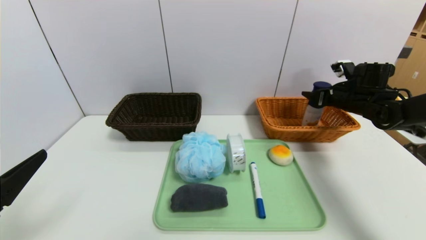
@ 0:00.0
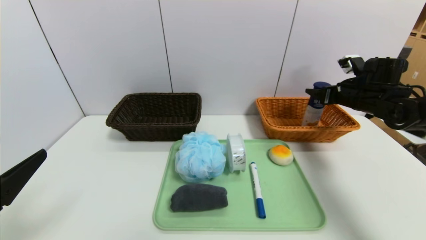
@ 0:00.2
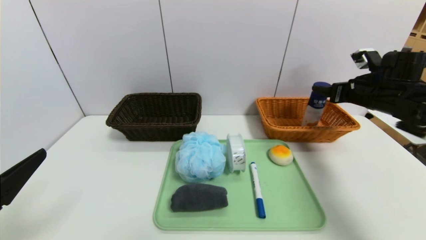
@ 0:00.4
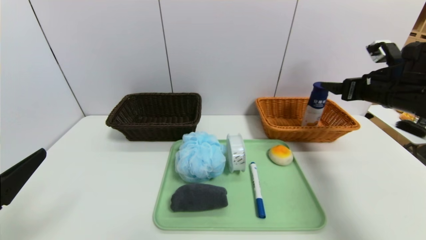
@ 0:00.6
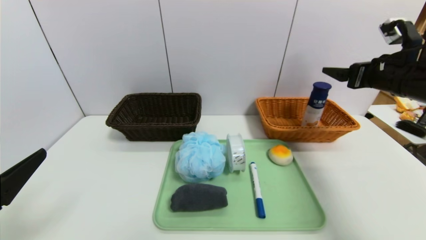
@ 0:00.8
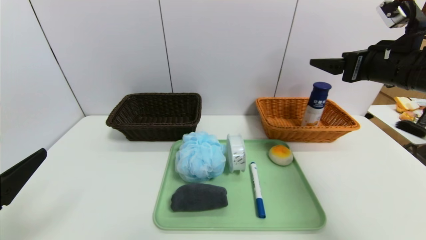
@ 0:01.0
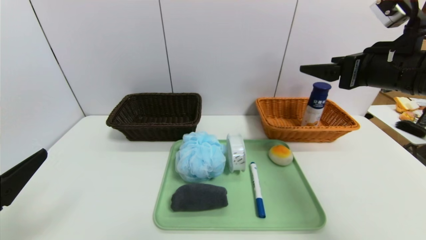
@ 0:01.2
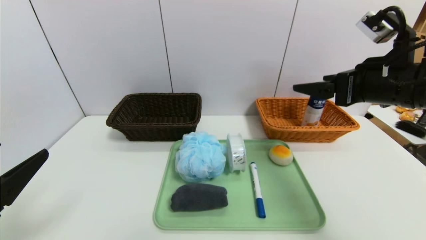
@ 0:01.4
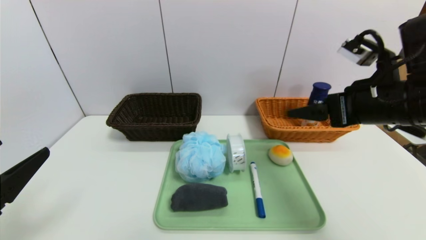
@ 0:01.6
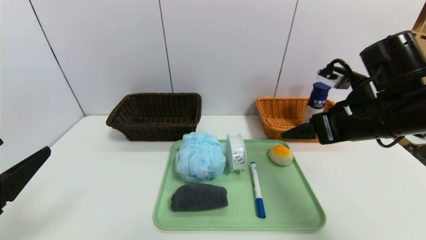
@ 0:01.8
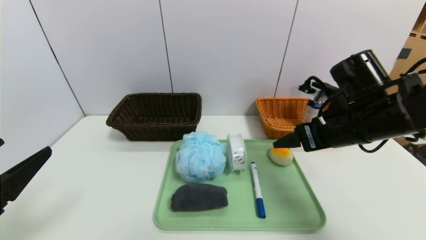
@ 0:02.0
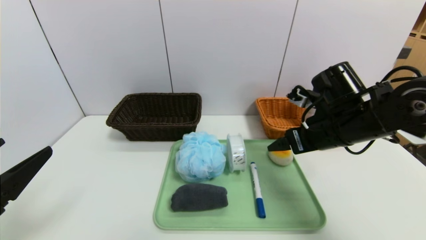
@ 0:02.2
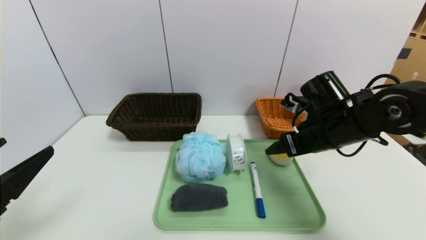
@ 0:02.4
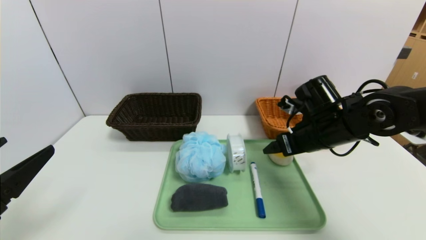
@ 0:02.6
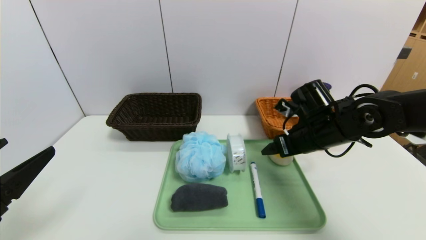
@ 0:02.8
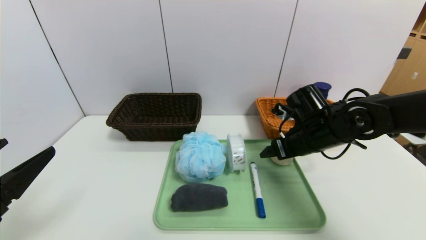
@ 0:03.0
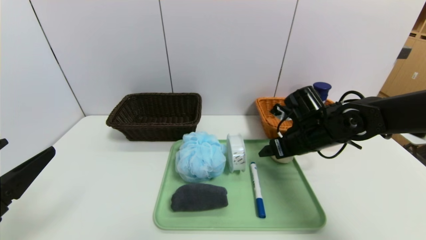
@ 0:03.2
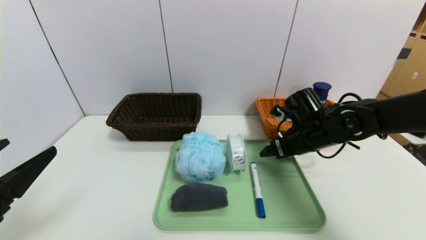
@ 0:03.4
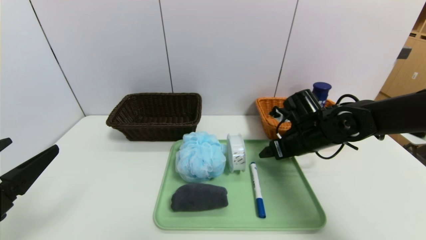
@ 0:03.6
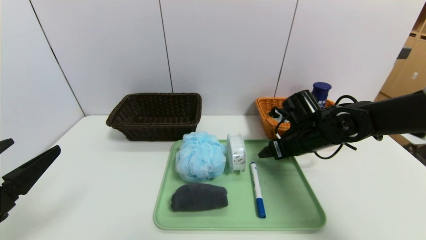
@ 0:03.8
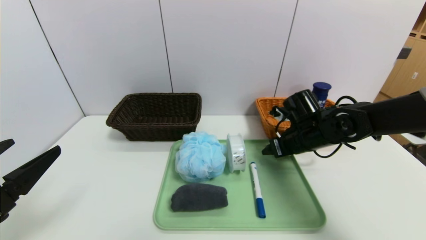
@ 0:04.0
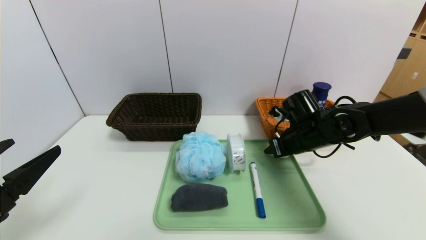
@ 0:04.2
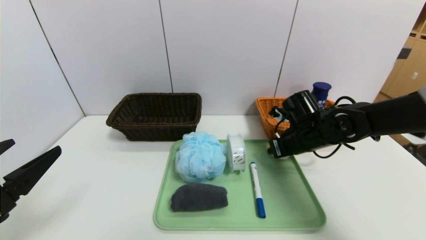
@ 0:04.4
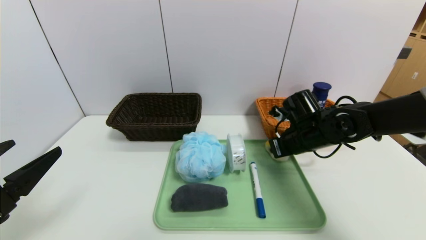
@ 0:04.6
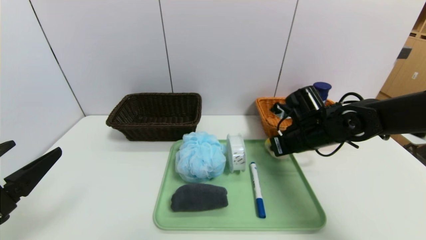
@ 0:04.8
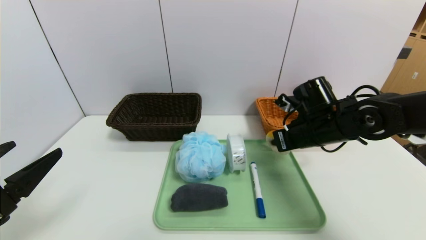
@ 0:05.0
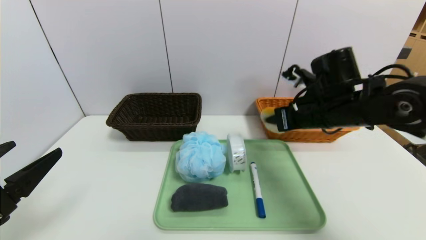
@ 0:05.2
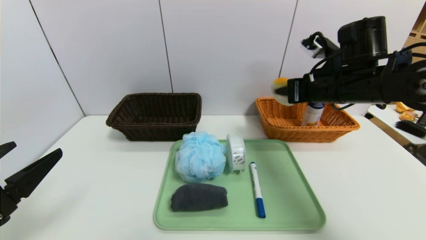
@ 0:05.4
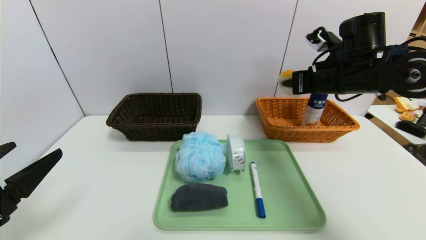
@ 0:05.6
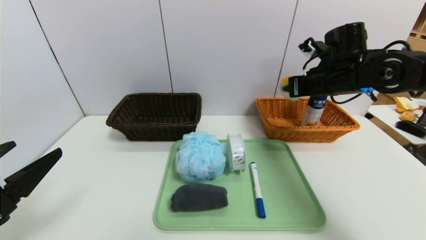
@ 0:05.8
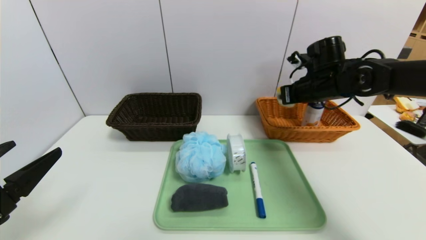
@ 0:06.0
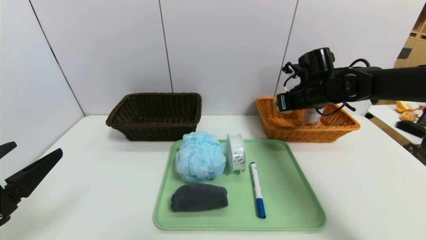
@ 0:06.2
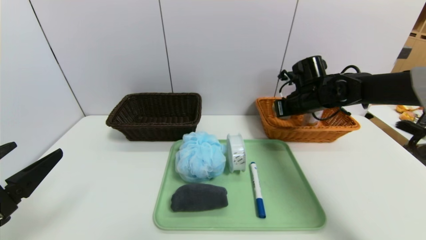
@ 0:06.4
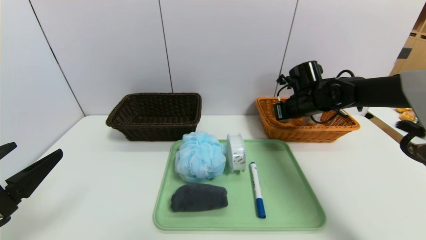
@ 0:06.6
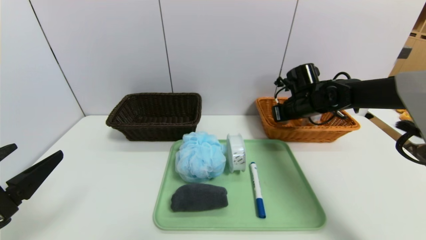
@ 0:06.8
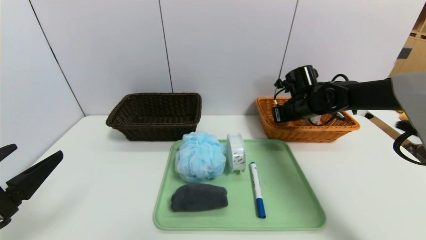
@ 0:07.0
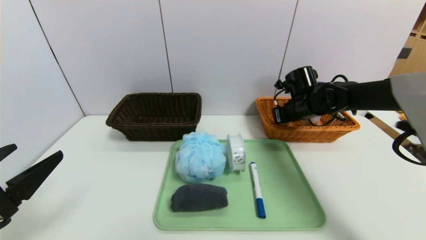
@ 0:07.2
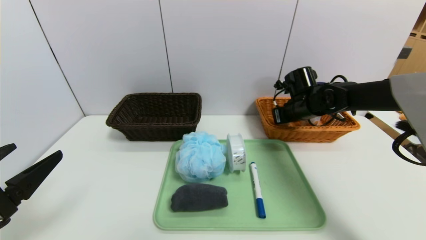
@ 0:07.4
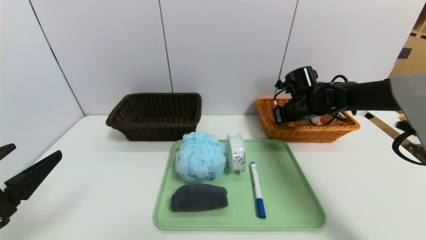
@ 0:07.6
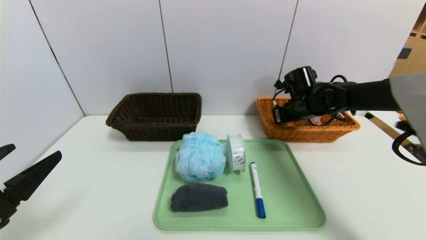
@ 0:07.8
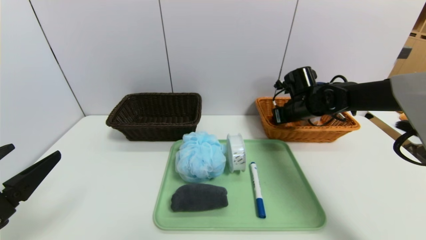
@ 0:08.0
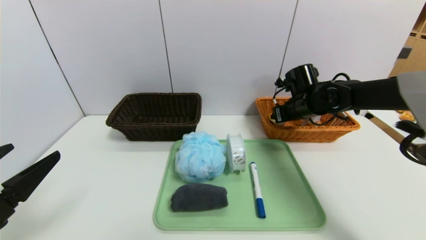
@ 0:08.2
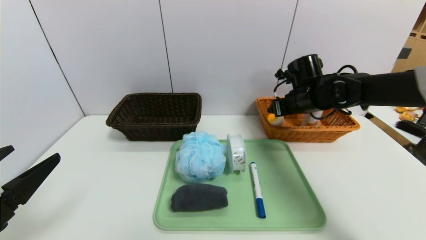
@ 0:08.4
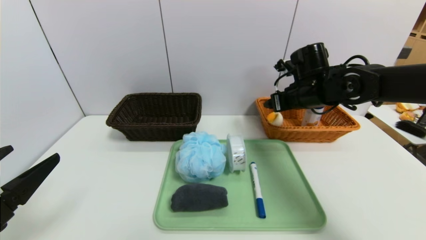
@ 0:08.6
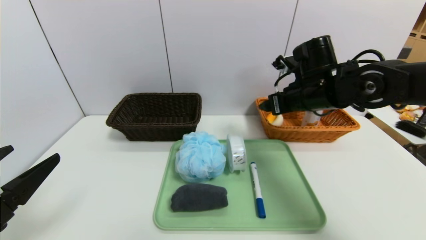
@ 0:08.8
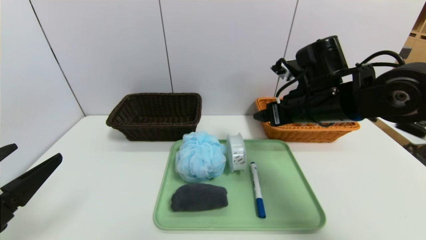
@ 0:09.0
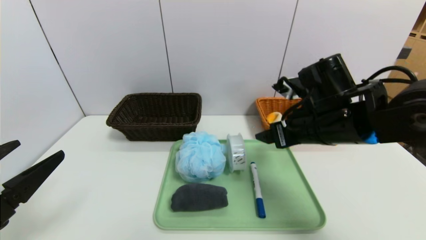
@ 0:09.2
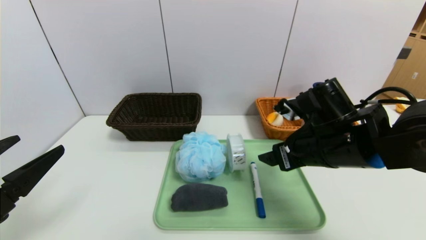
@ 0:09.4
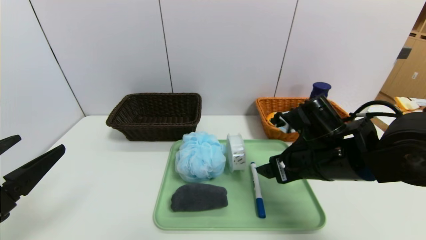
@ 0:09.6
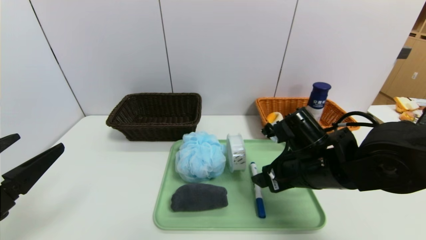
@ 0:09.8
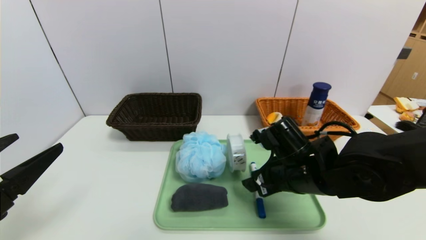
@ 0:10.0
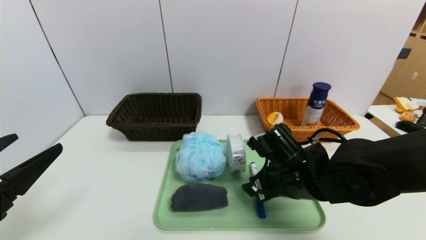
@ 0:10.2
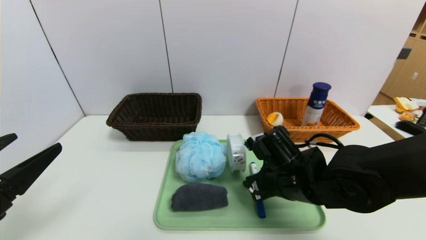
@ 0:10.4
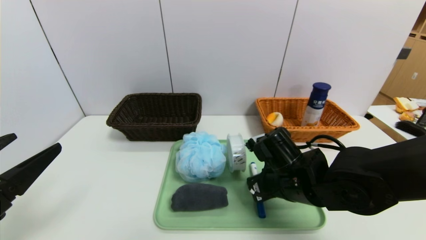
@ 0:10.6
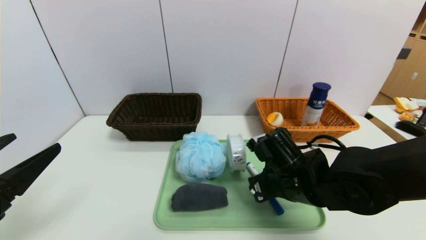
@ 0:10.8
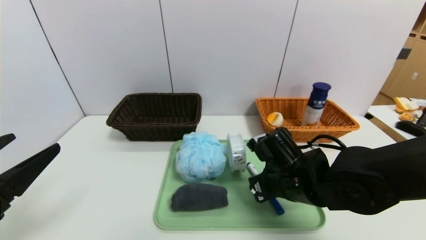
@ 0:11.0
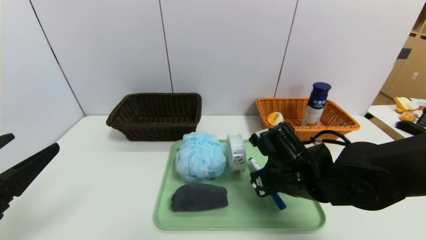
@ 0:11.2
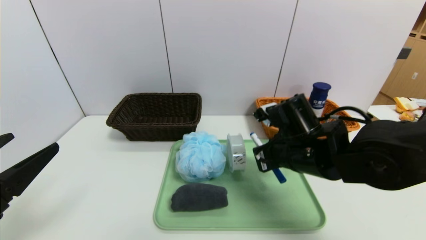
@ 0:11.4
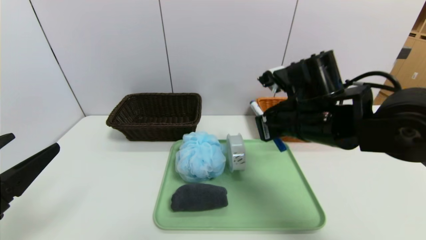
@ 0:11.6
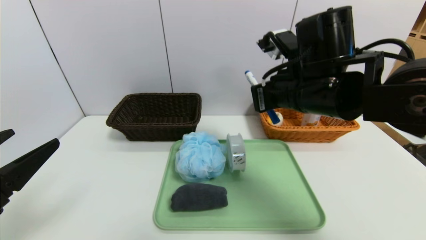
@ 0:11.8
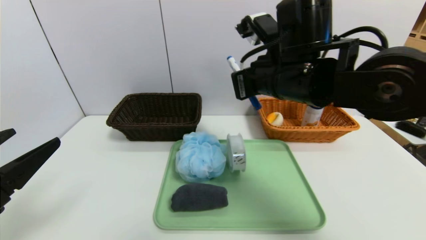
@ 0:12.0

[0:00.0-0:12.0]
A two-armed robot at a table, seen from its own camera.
Task of the whole recording: place the food in the right basket with the right gripper, and place the non food items in the left basket with the left gripper.
Step, 0:00.2 to 0:08.4: Grasp the round bread and put it in the right basket.
0:00.0 to 0:01.6: The right gripper heads backward, to the left and upward, covering about 25 cm.
0:01.6 to 0:03.0: The right gripper travels downward and forward by about 15 cm.
0:03.0 to 0:04.4: The right gripper closes up.
0:04.4 to 0:06.0: The right gripper travels upward and forward by approximately 10 cm.
0:06.0 to 0:07.6: The right gripper goes approximately 5 cm downward.
0:07.6 to 0:09.0: The right gripper travels backward, upward and to the left by approximately 15 cm, and opens.
0:09.0 to 0:10.4: The right gripper is displaced downward by approximately 10 cm.
0:10.4 to 0:12.0: The right gripper is displaced upward by approximately 20 cm, and closes up.

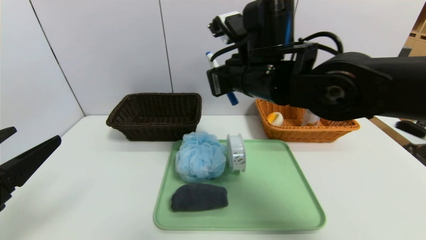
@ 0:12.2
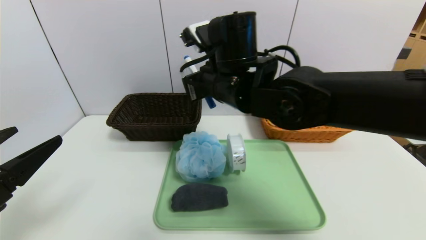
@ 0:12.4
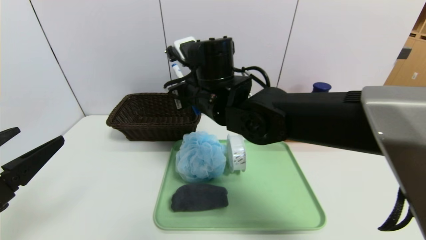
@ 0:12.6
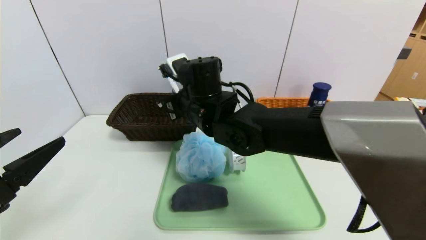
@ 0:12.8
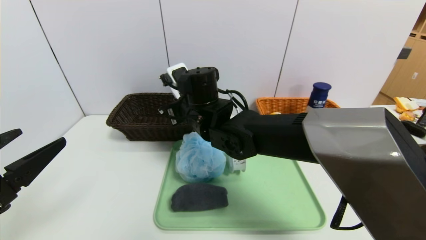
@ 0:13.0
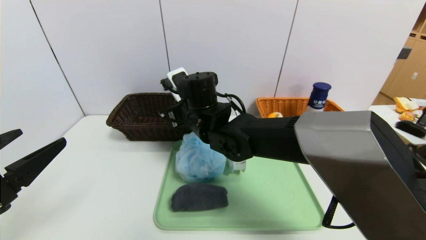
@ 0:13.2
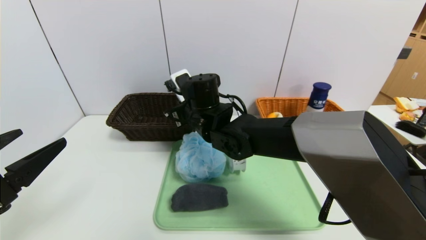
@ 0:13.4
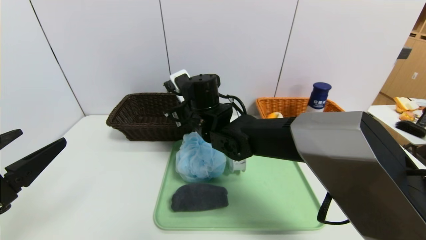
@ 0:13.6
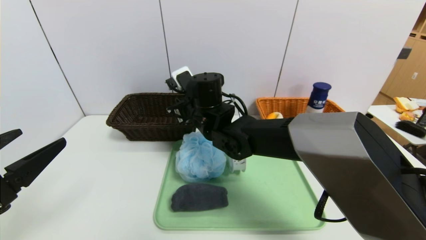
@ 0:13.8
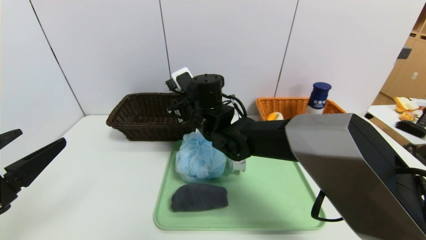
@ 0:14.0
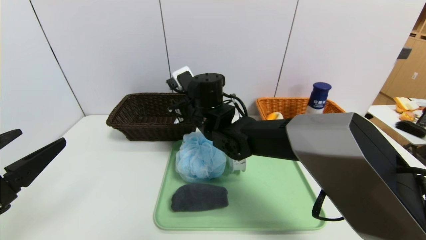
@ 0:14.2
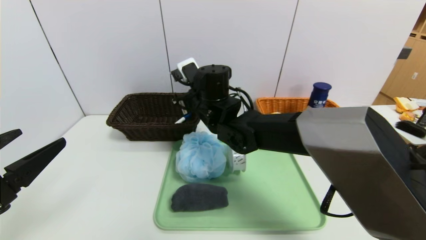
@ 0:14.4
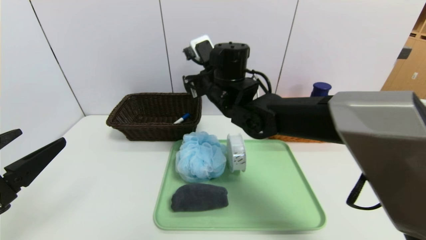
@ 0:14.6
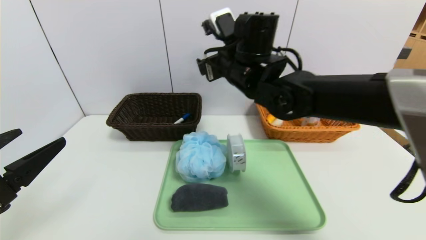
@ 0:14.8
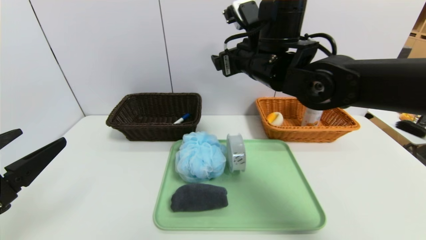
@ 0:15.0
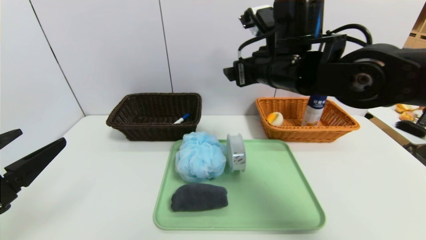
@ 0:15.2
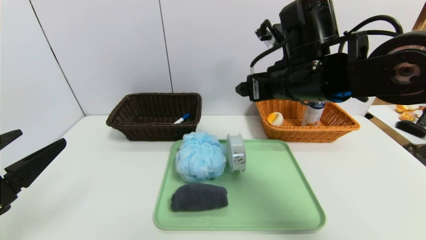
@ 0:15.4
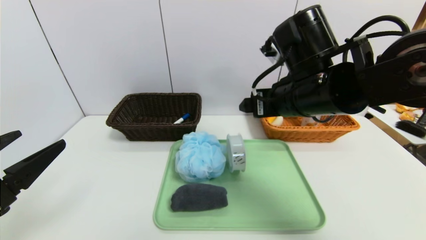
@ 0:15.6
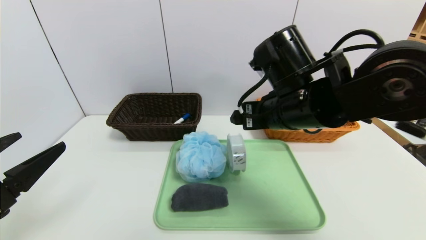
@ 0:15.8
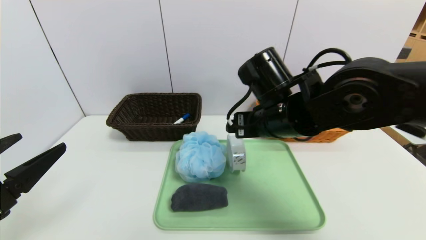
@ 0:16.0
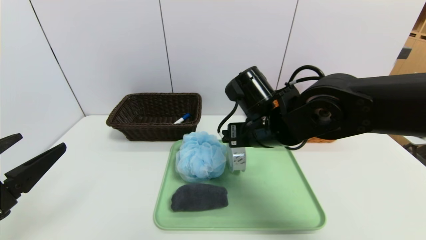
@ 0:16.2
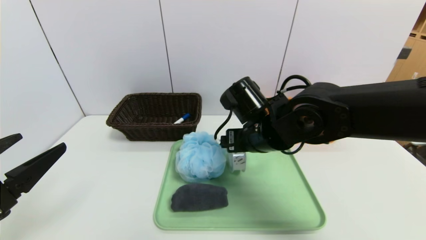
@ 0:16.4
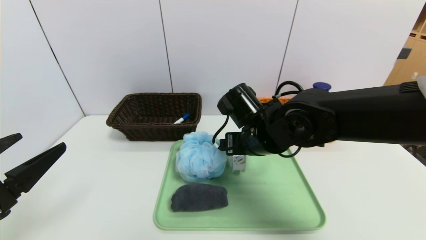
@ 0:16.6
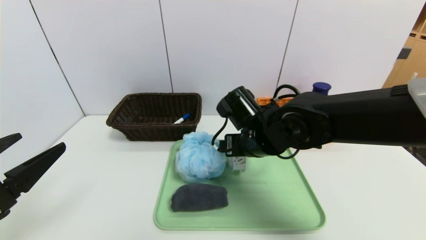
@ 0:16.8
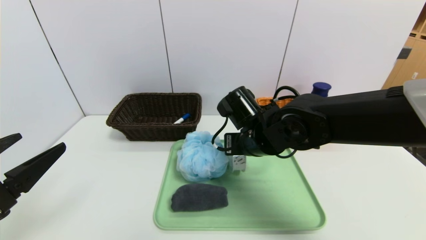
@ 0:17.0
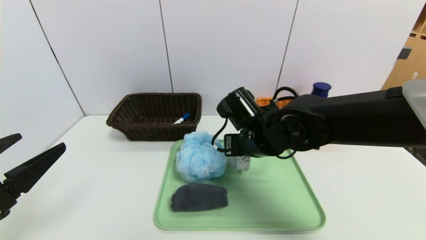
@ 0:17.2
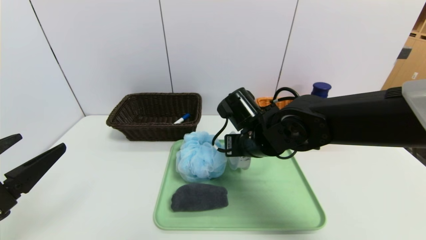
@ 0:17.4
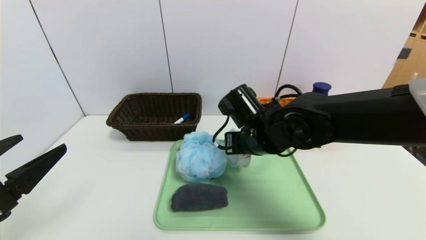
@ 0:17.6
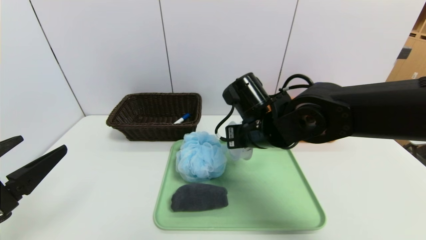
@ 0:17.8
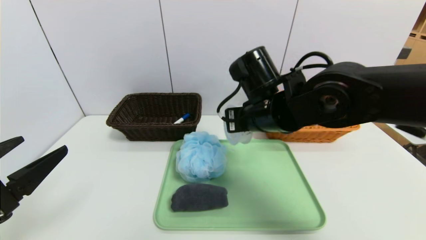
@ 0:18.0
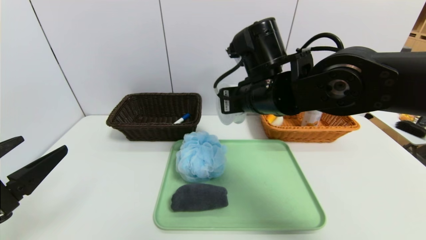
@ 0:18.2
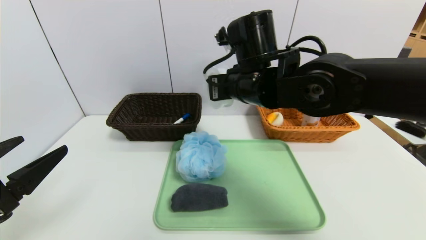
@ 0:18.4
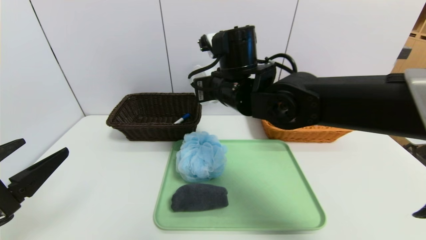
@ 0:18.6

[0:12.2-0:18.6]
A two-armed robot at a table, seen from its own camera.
Task of the whole recording: place the food in the right basket with the right gripper, and place the non food items in the left basket with the left gripper.
0:12.2 to 0:13.8: The right gripper travels downward, to the left and forward by approximately 15 cm, and opens.
0:13.8 to 0:15.4: The right gripper heads to the right, upward and backward, covering roughly 20 cm, and opens its fingers.
0:15.4 to 0:17.0: The right gripper shifts roughly 15 cm downward and to the left.
0:17.0 to 0:18.6: The right gripper moves upward, some 10 cm, and closes.
